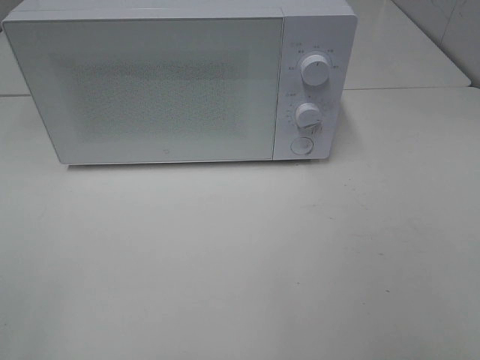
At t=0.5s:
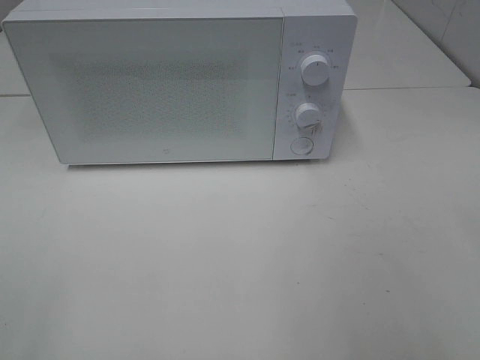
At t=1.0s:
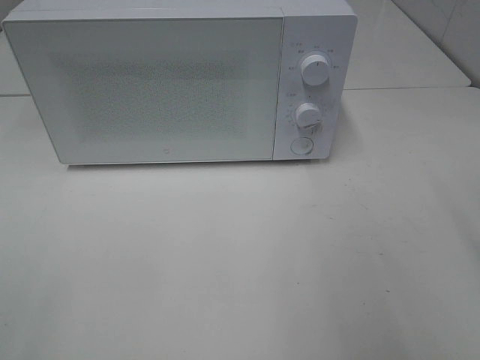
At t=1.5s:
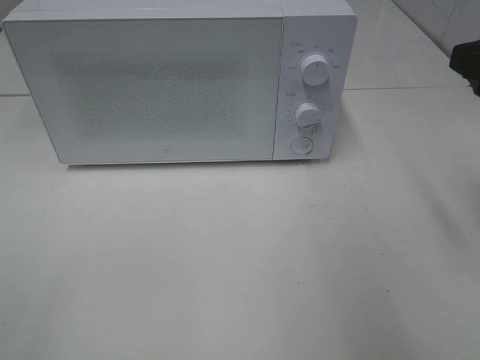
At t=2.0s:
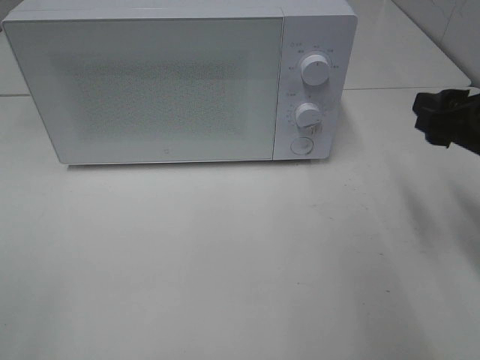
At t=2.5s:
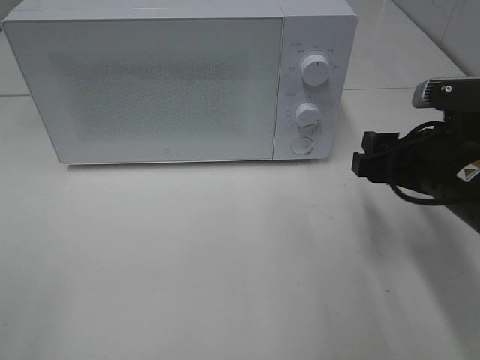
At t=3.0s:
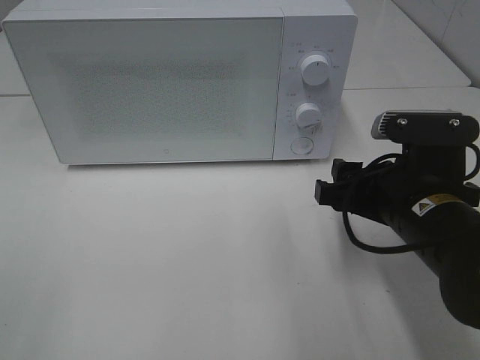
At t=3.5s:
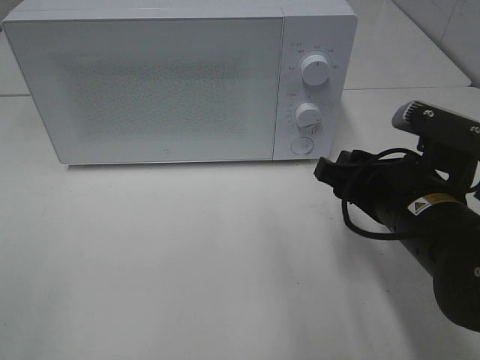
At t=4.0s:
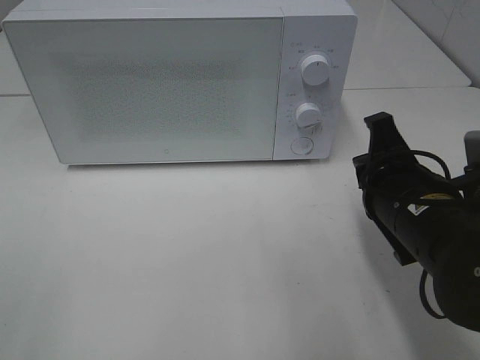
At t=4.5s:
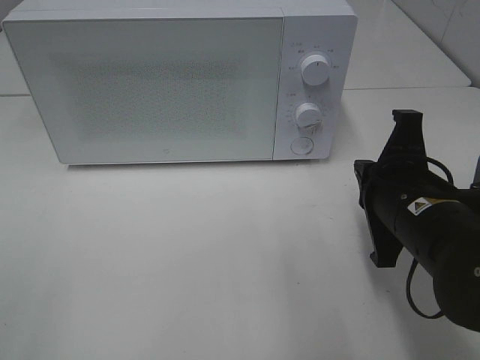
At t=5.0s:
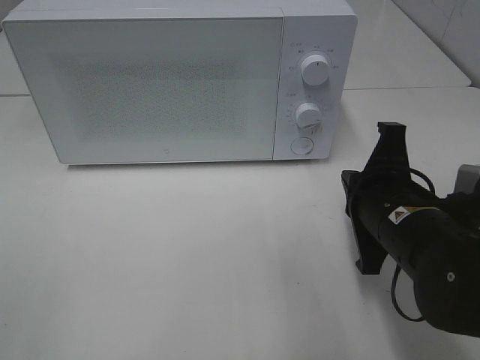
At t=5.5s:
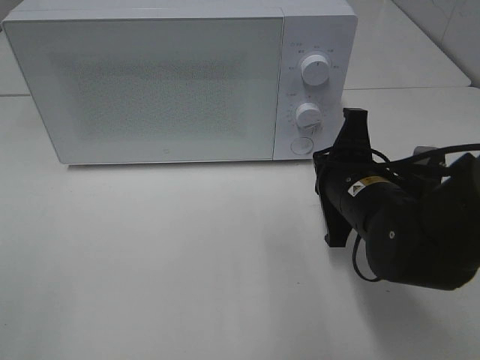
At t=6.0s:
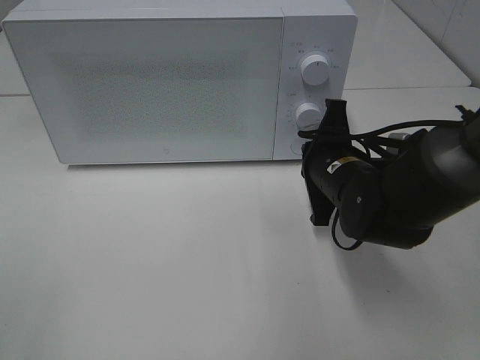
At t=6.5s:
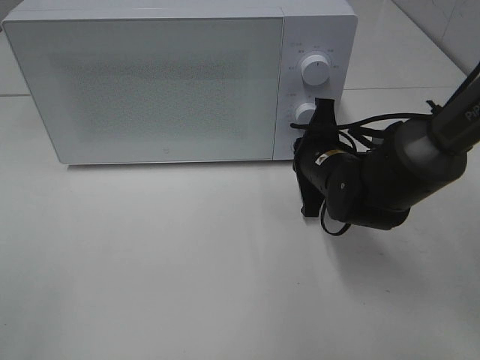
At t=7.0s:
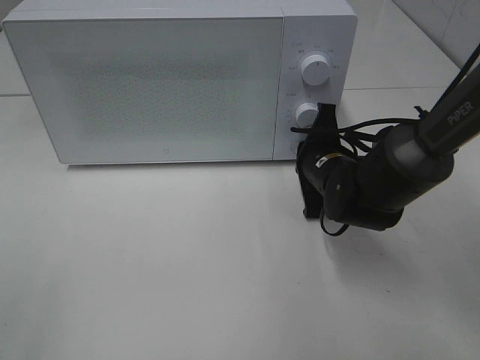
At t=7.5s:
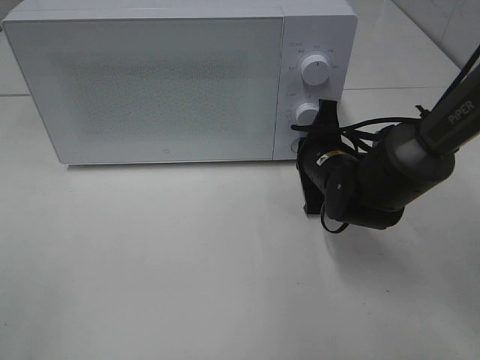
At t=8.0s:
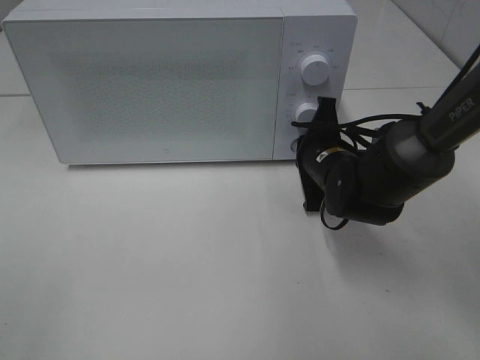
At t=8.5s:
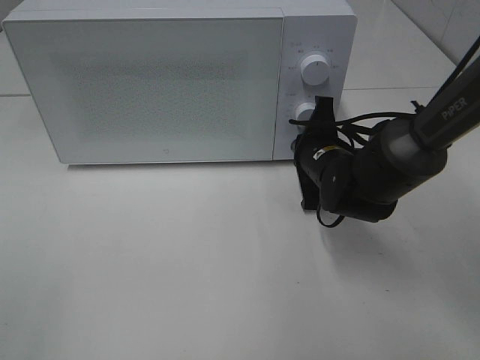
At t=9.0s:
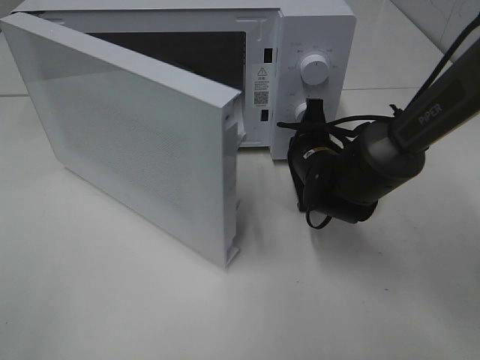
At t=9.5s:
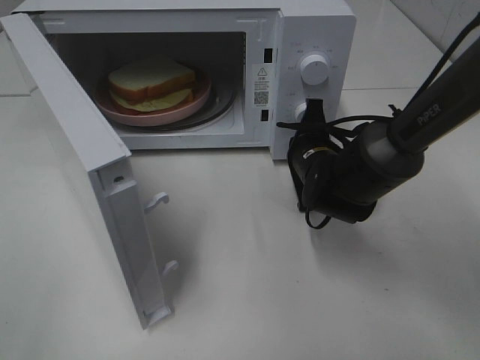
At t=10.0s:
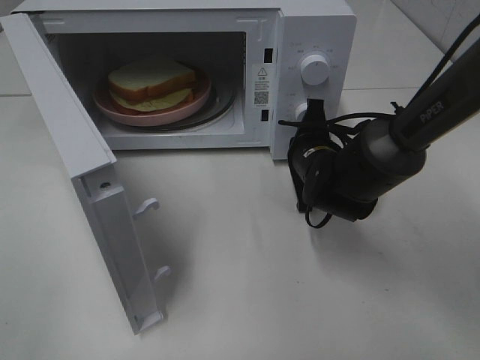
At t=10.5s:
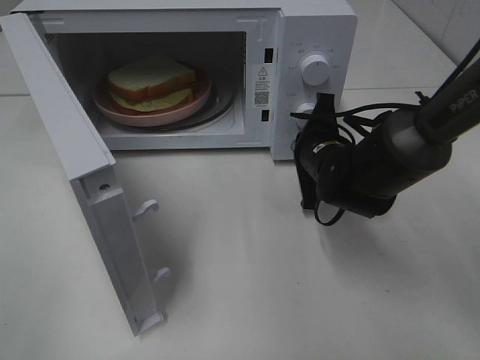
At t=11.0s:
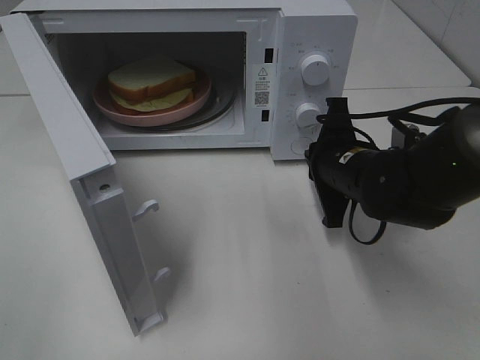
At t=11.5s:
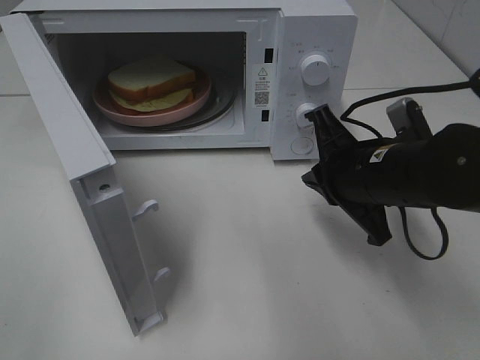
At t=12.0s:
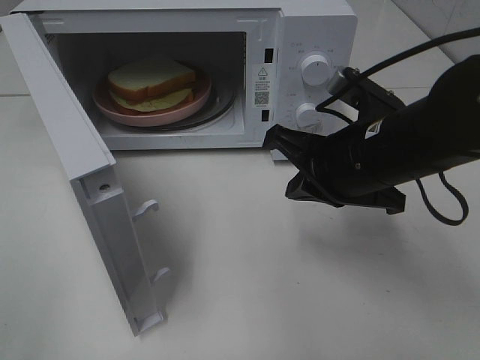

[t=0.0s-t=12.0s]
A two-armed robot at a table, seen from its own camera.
Task of the whole recording: Heat Sandwich.
Step, t=0.0s to t=10.5s: Right hand: press the switch.
t=0.0s to t=2.0s: The right gripper goes approximately 25 cm forward.
t=2.0s to t=4.0s: The right gripper goes about 10 cm to the left and downward, and closes.
t=4.0s to t=6.0s: The right gripper travels forward by some 10 cm.
t=6.0s to t=8.0s: The right gripper changes place by some 5 cm.
t=10.0s to t=12.0s: The right gripper is displaced backward and upward by about 15 cm.

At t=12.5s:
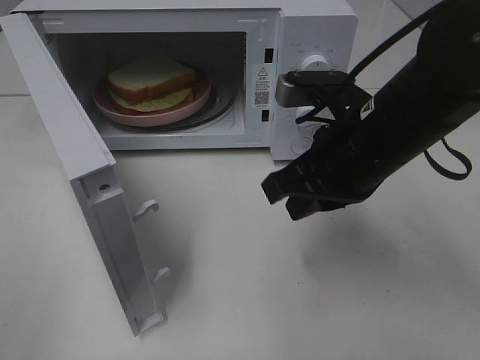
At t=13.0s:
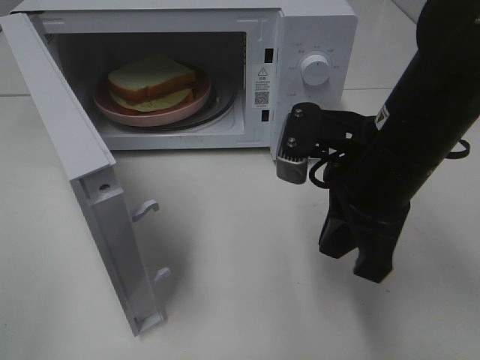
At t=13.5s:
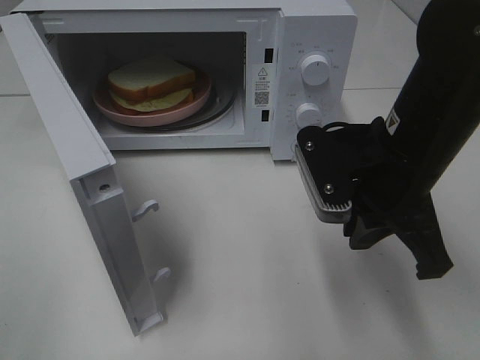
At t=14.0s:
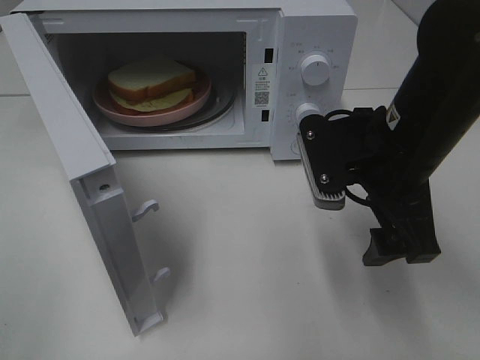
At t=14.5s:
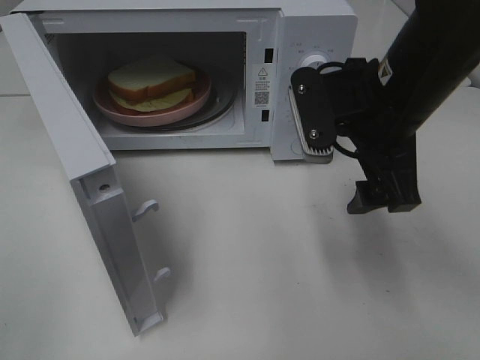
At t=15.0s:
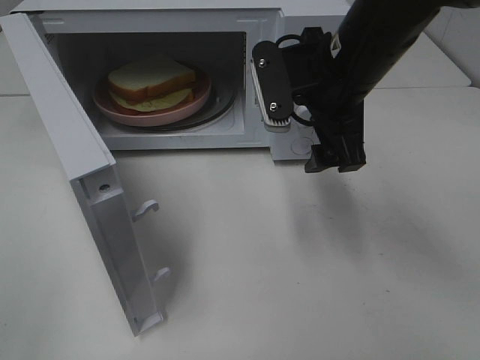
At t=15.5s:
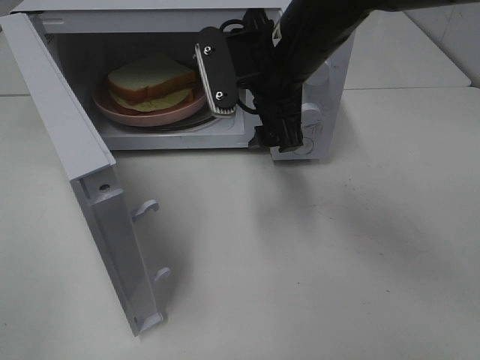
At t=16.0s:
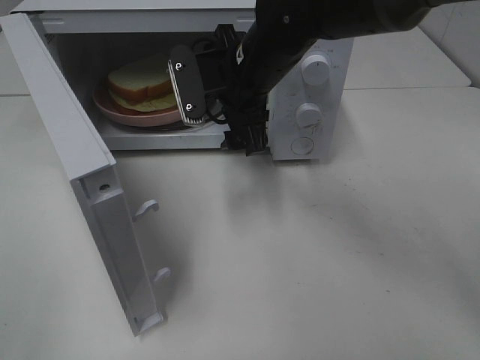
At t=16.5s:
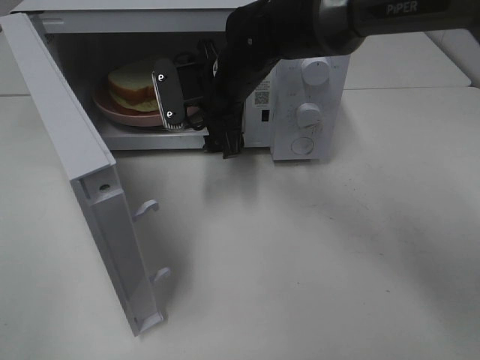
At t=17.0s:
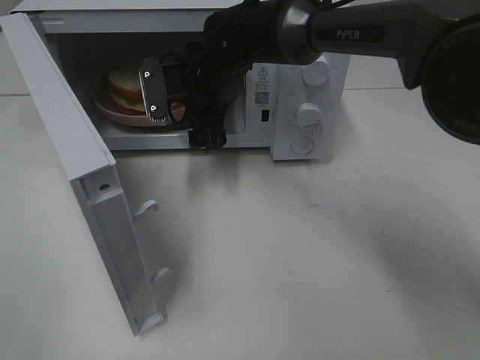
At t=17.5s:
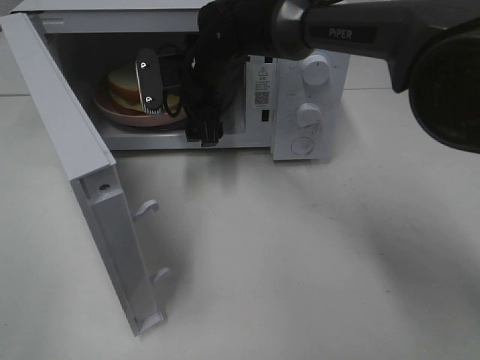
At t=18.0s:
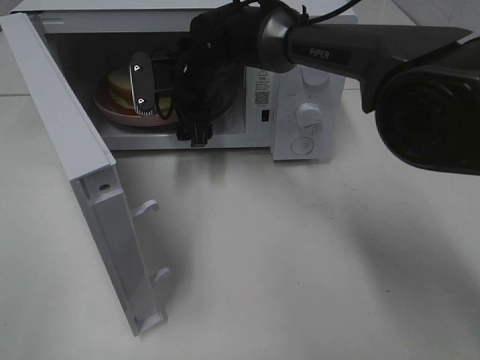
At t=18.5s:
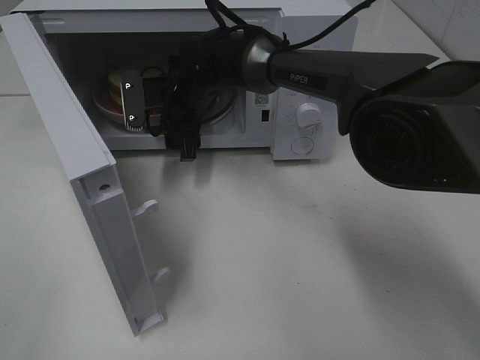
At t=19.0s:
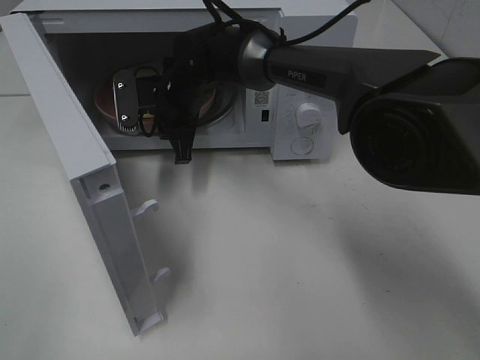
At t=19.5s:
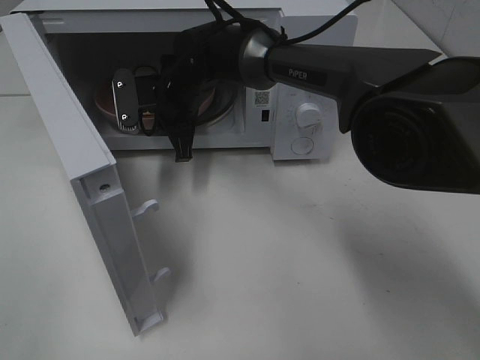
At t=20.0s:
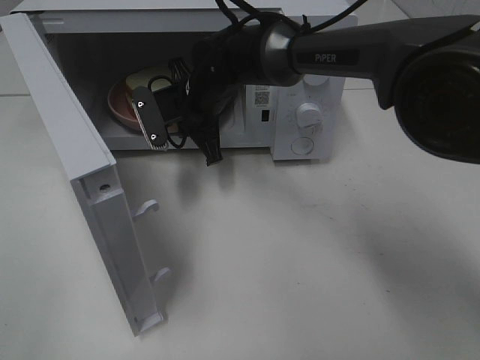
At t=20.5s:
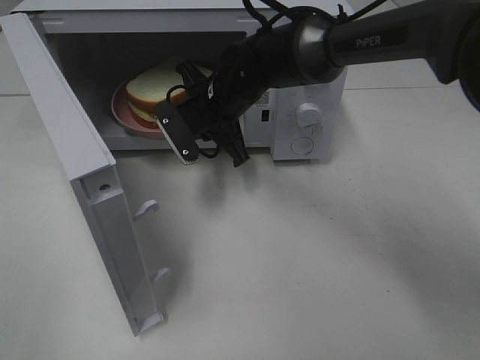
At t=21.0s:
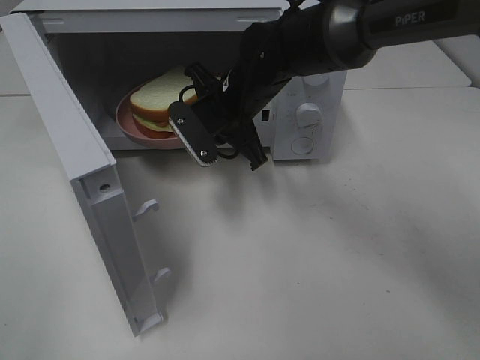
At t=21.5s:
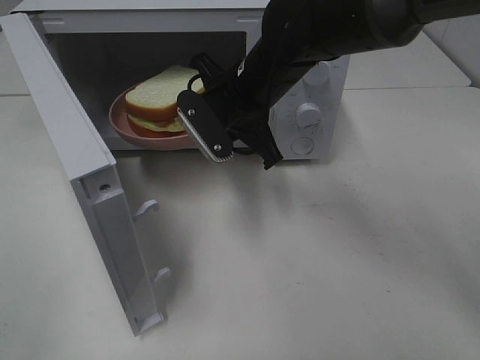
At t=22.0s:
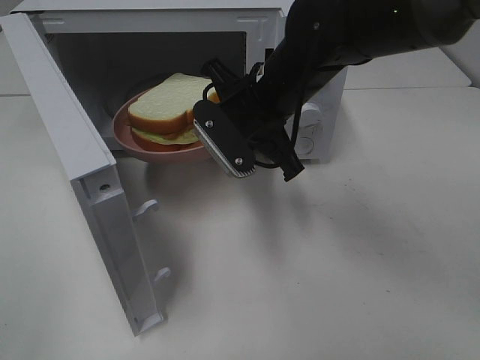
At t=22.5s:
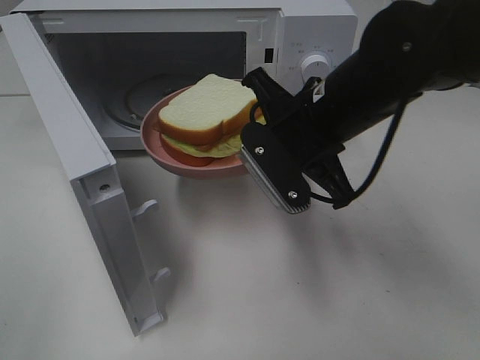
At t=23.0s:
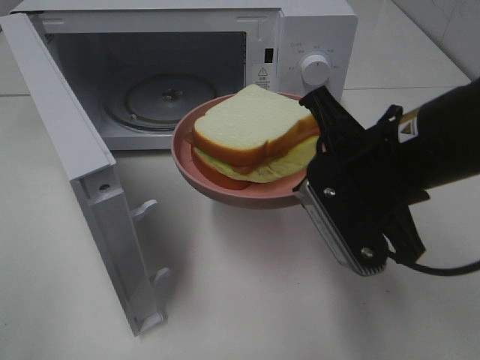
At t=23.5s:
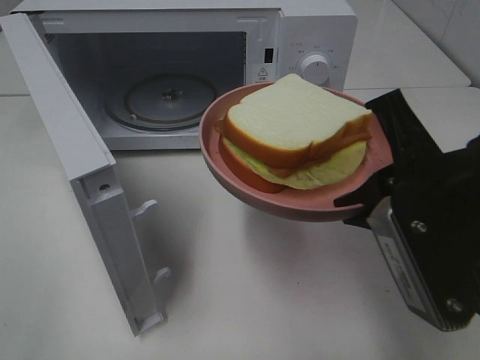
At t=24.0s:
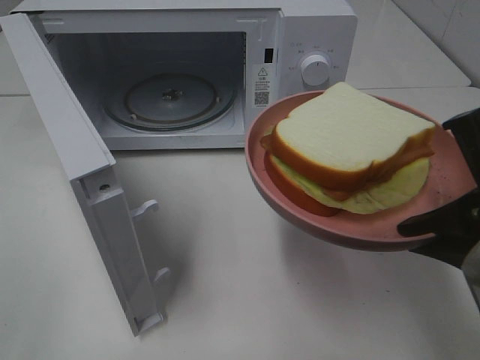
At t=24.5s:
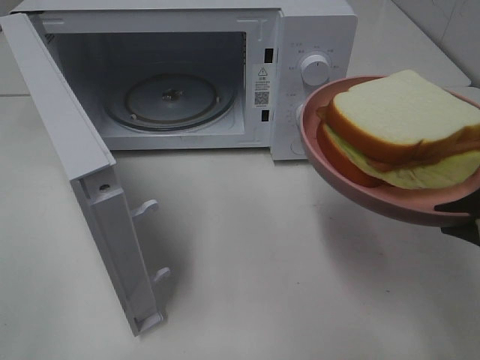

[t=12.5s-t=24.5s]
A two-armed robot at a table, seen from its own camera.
Task of the whole recording: Heat Sandwich.
Step, t=12.5s to t=19.5s: Right hand: grab the plate with the sandwich.
t=12.5s to t=14.5s: The right gripper opens up.
t=14.5s to t=16.5s: The right gripper moves forward, to the left and downward, roughly 20 cm.
t=16.5s to t=18.5s: The right gripper goes some 5 cm to the left.
t=18.5s to t=20.5s: The right gripper is displaced to the right by roughly 5 cm, and closes its fingers.
t=20.5s to t=22.5s: The right gripper is displaced backward, to the right and upward by some 20 cm.
t=22.5s to t=24.5s: The right gripper travels backward and to the right by some 20 cm.

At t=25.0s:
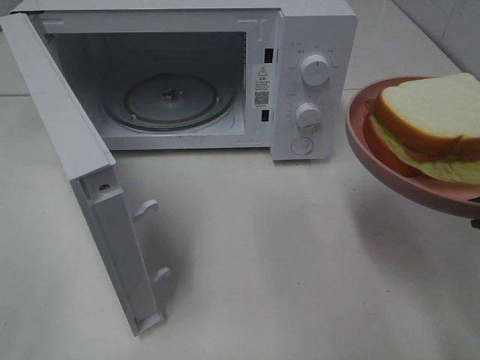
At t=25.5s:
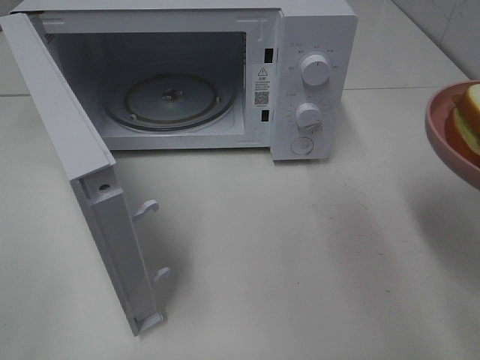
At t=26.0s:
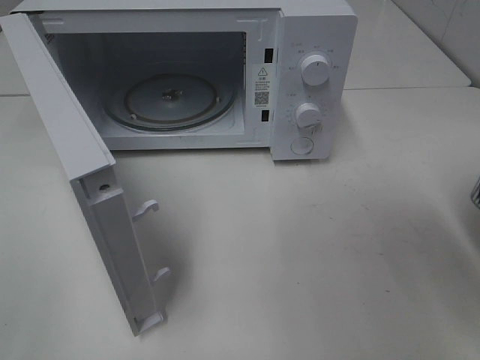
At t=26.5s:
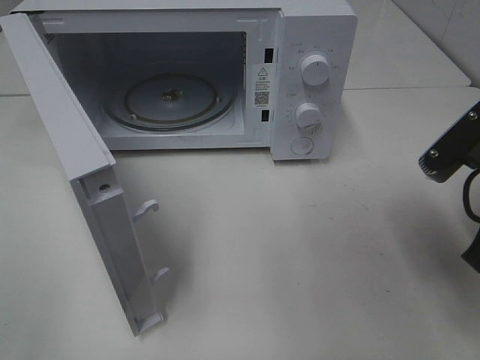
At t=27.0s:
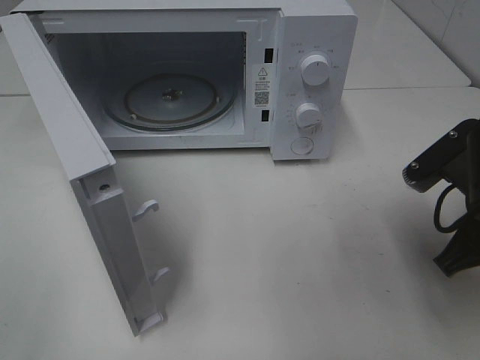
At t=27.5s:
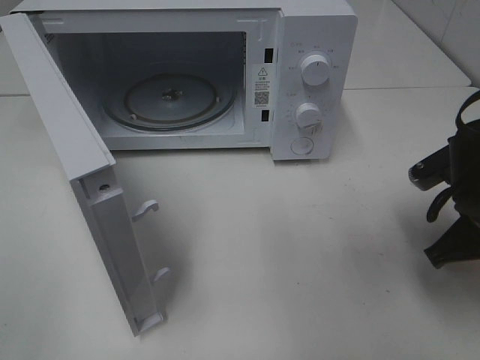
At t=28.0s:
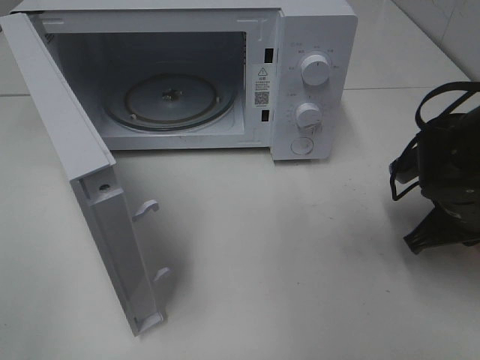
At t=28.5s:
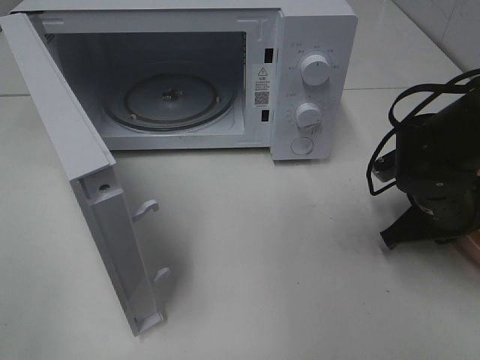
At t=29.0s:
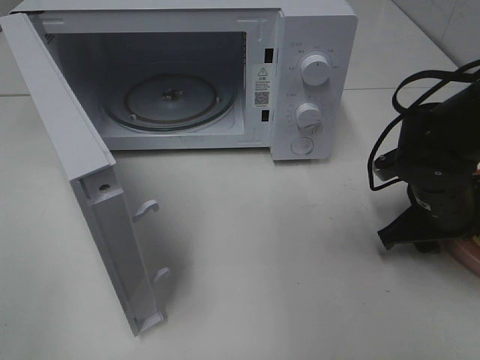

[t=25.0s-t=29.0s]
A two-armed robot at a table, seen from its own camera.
Task of the whole recording: Heat Sandwich.
t=25.0s to t=27.0s: The right gripper goes some 10 cm downward and forward.
t=27.0s to t=29.0s: The right gripper moves forward and downward, approximately 10 cm, and opens up.
